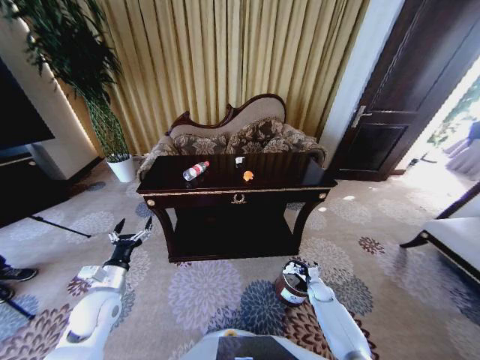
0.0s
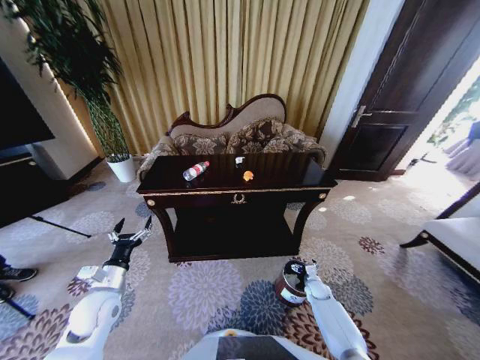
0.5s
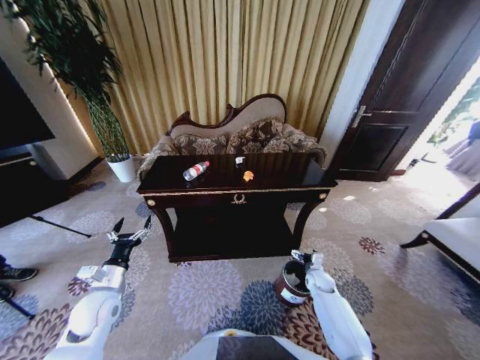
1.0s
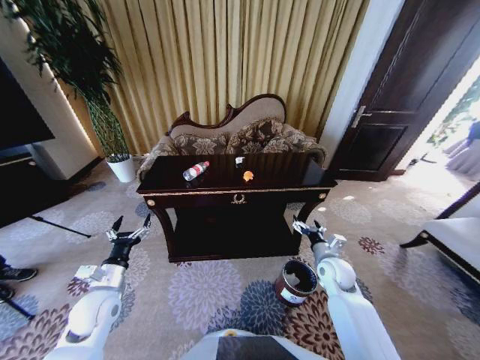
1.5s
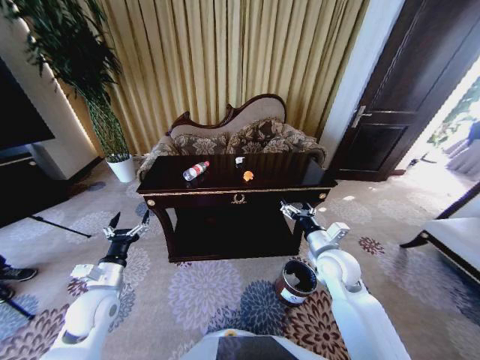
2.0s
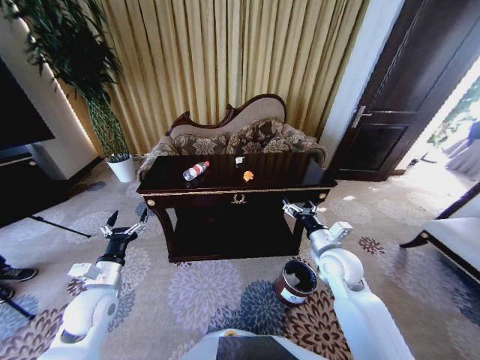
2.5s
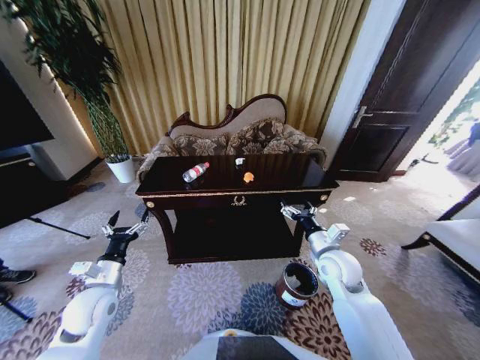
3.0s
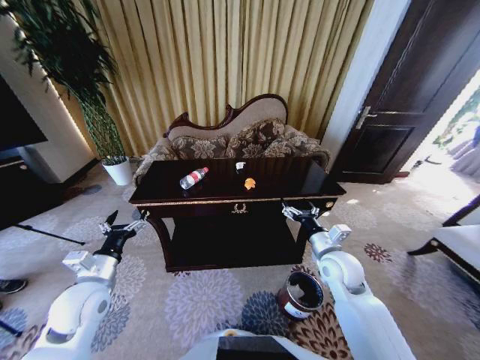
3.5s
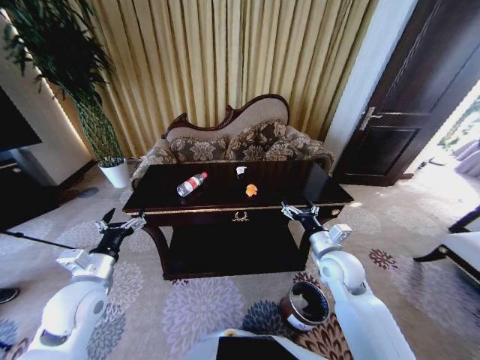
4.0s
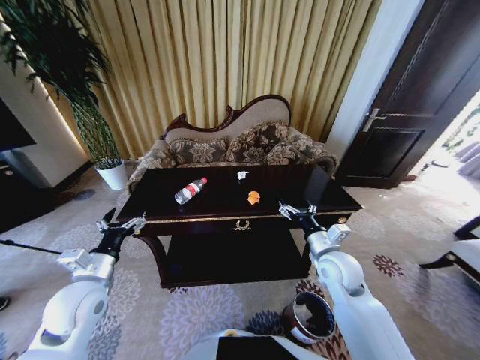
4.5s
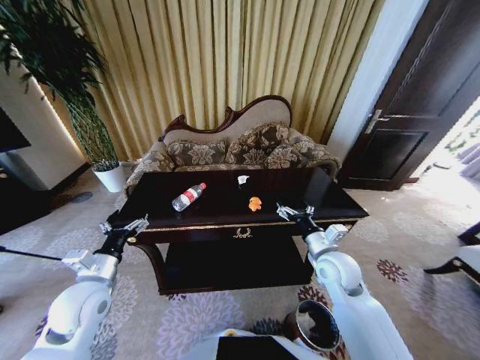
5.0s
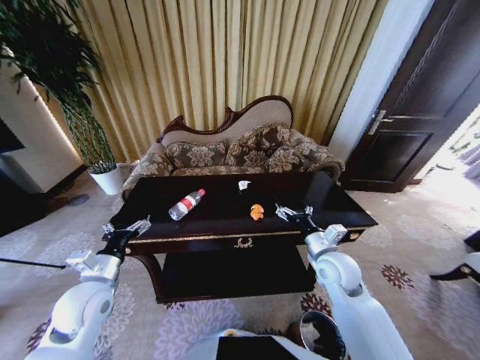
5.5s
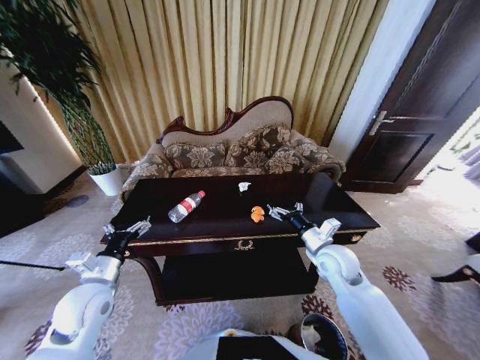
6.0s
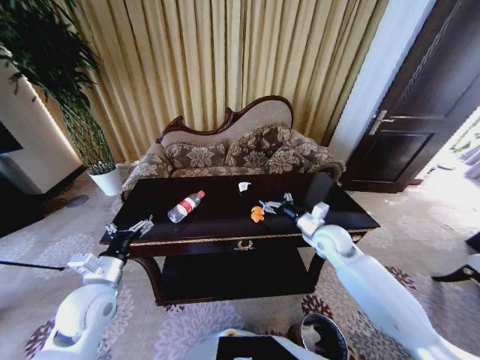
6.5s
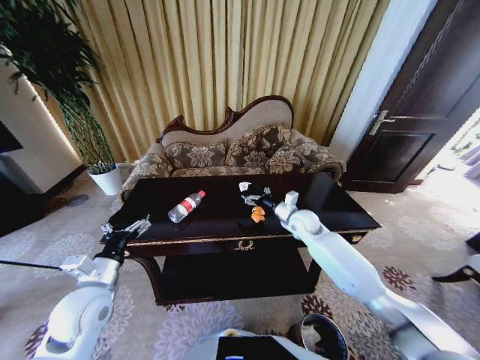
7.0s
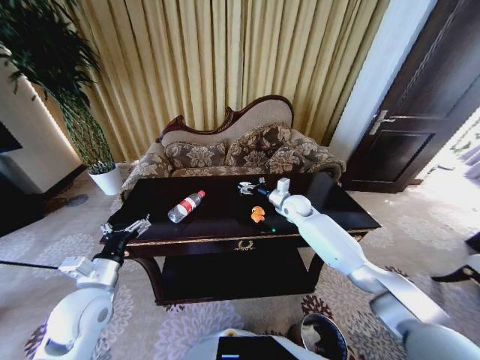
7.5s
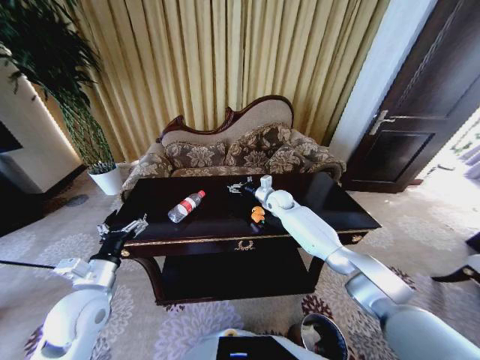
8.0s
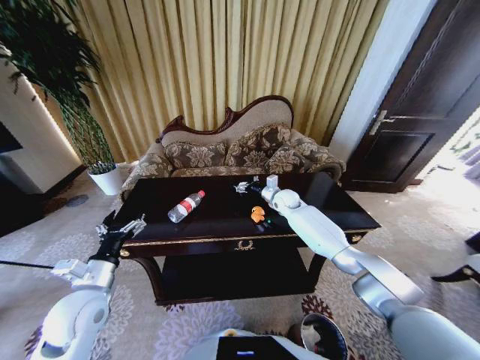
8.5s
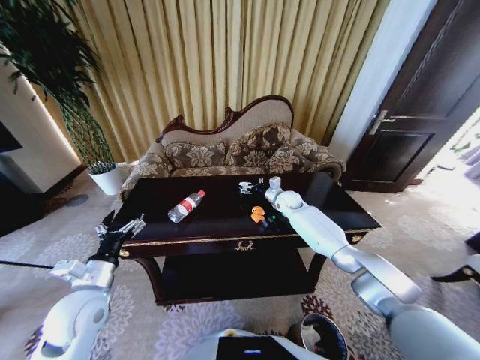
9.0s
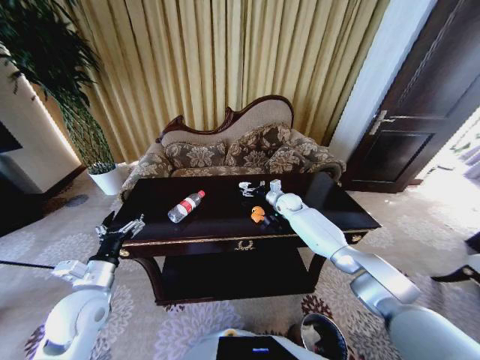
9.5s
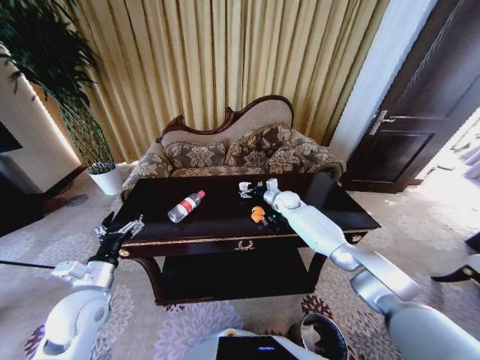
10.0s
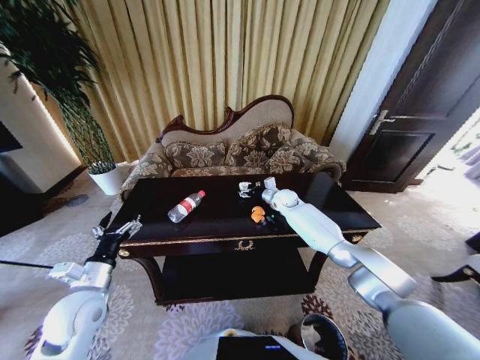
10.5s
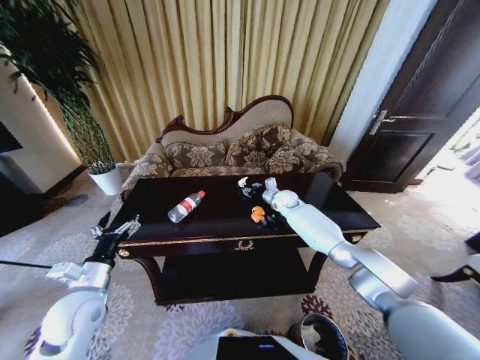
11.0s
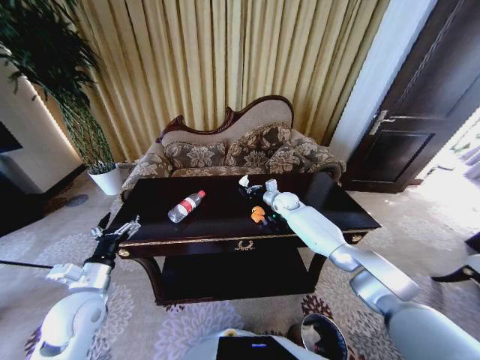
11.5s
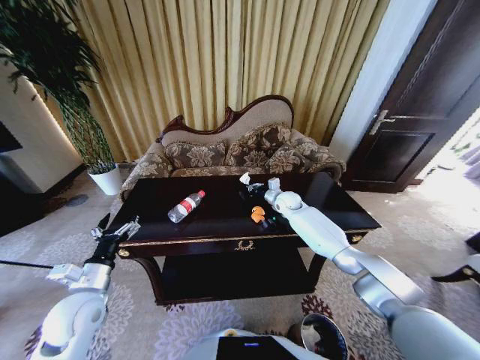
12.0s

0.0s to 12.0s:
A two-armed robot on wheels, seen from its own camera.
Task of the whole recording: Move to the front of the table and place the trash on the table into the trash bin.
0.0s to 2.0s: The right gripper moves upward, about 30 cm.
2.0s to 4.0s: The left gripper moves upward, approximately 5 cm.
6.0s to 8.0s: The right gripper travels forward by about 25 cm.
8.0s to 10.0s: There are only small adjustments of the grippers.
10.0s to 12.0s: The right gripper closes its fingers.

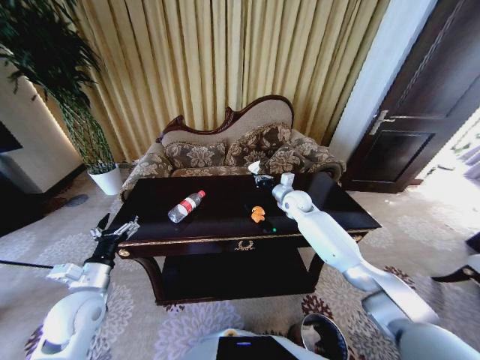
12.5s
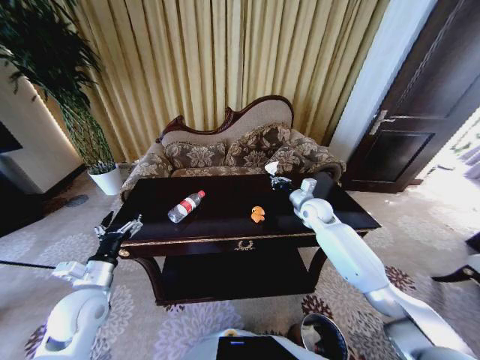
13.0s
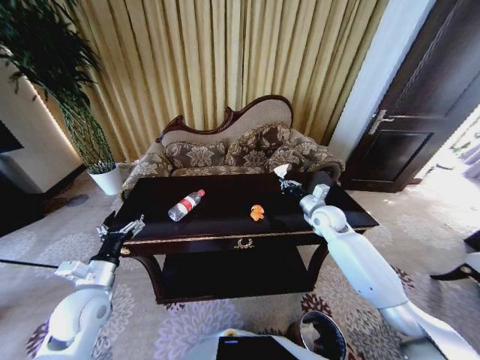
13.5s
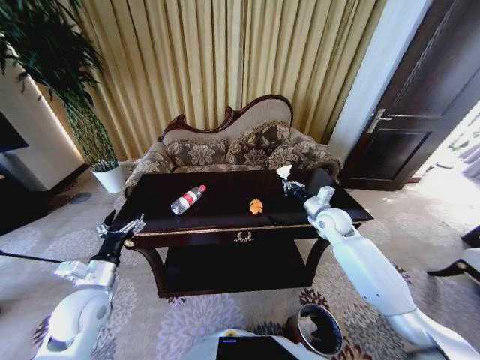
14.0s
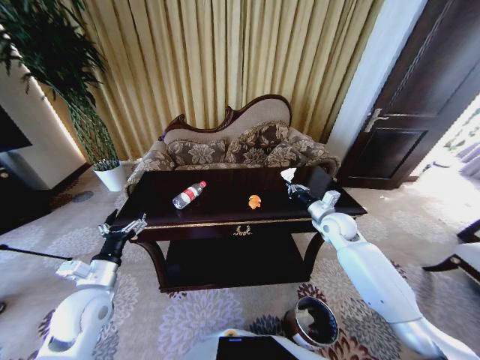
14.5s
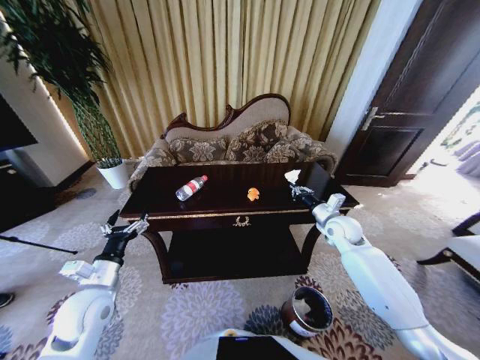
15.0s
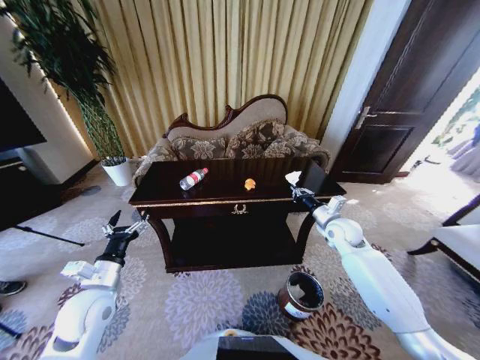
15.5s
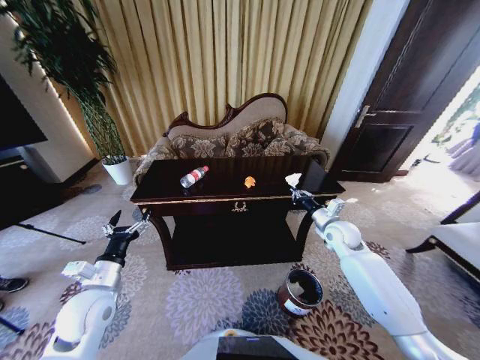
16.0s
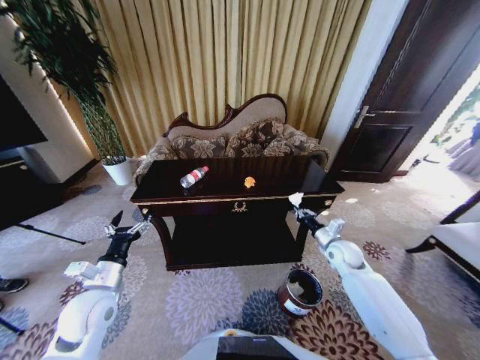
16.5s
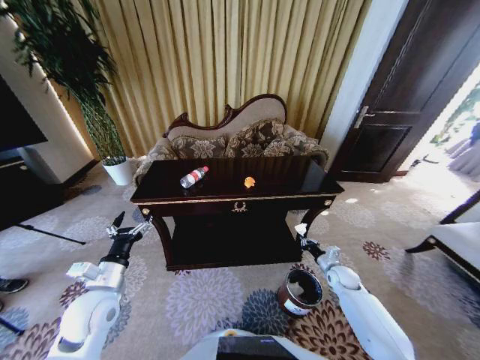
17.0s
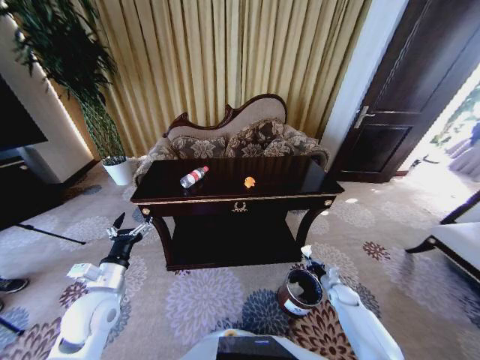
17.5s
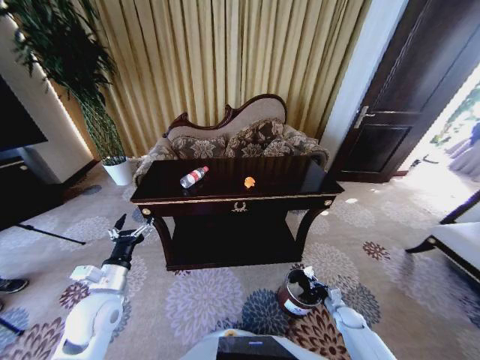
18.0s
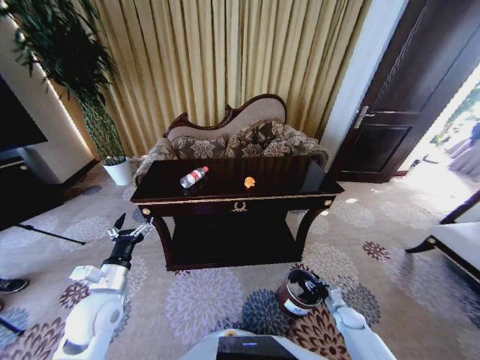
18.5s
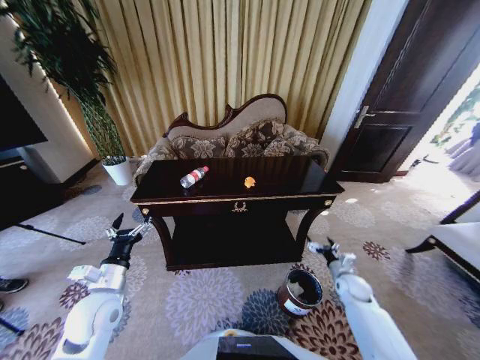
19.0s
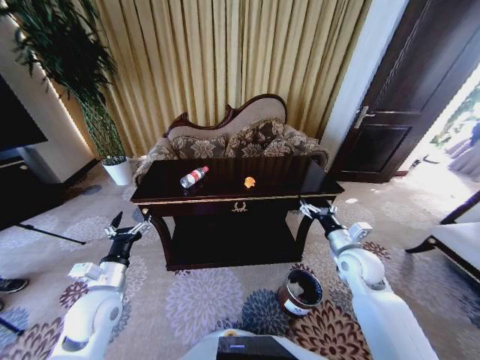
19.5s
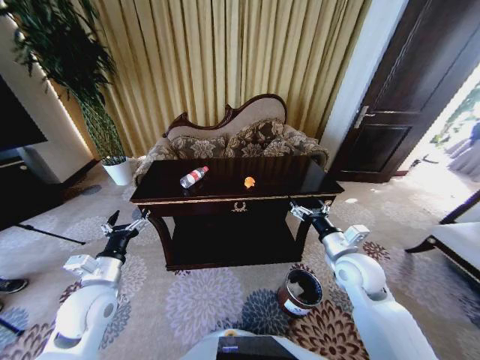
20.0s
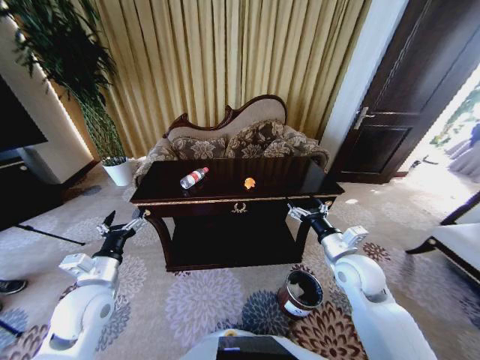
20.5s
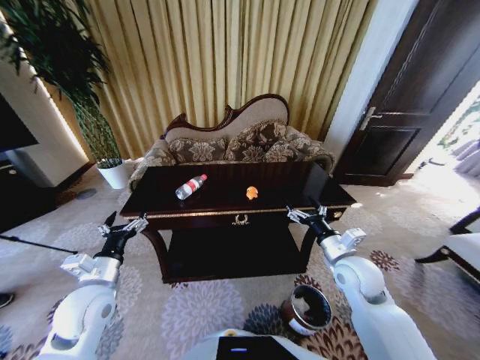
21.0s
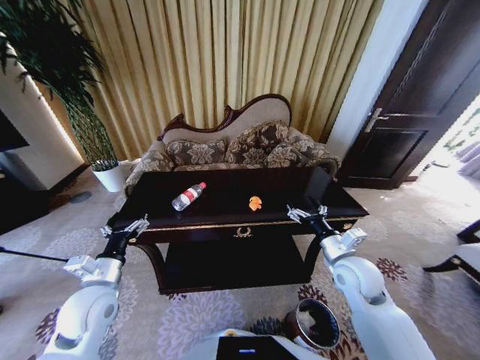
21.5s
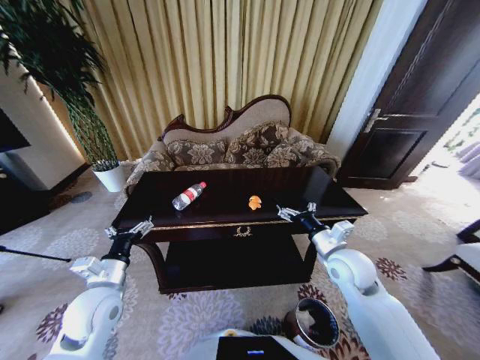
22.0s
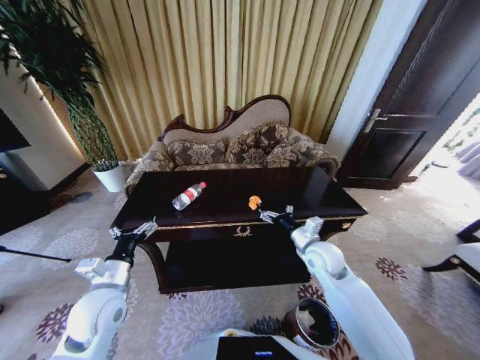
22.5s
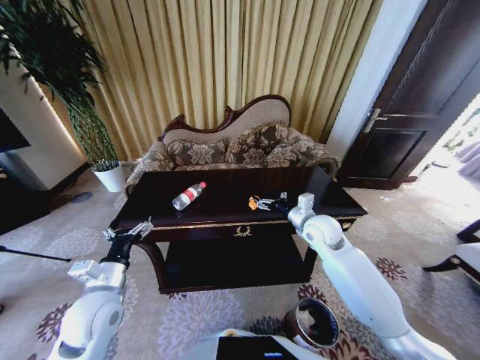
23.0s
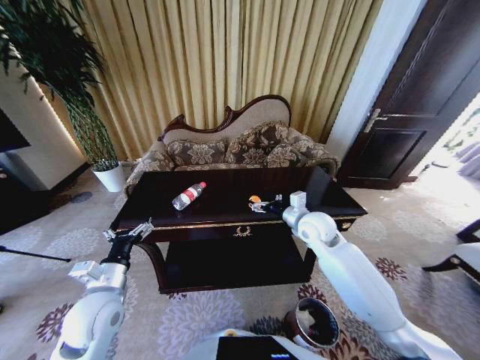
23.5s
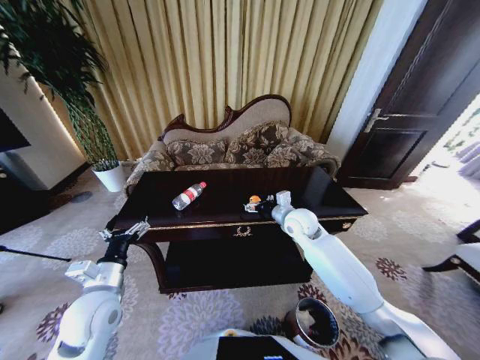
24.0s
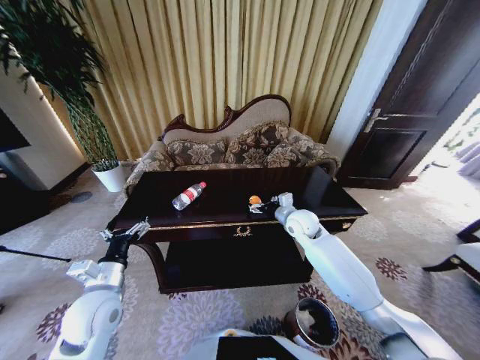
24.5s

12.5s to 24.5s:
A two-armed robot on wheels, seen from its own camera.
Task of the whole recording: Move to the front of the table and place the trash on the table into the trash bin.
12.5s to 14.5s: The right gripper moves backward and to the right, some 15 cm.
14.5s to 16.5s: The right gripper travels downward and backward by about 10 cm.
16.5s to 18.5s: The right gripper goes approximately 30 cm downward and backward, and opens up.
18.5s to 20.5s: The right gripper shifts roughly 35 cm upward and to the left, and opens up.
20.5s to 22.5s: The right gripper is displaced forward and to the left by approximately 10 cm.
22.5s to 24.5s: The right gripper heads forward, covering roughly 10 cm.

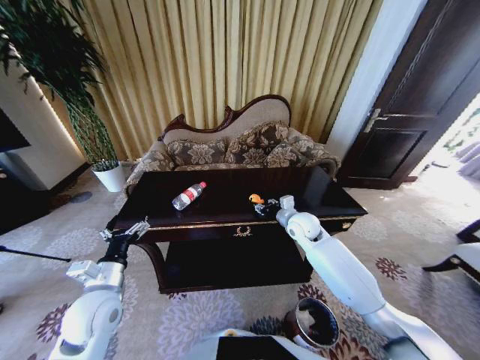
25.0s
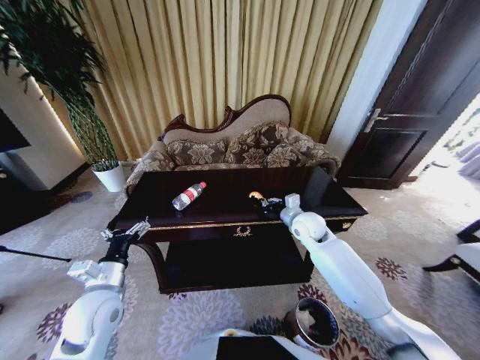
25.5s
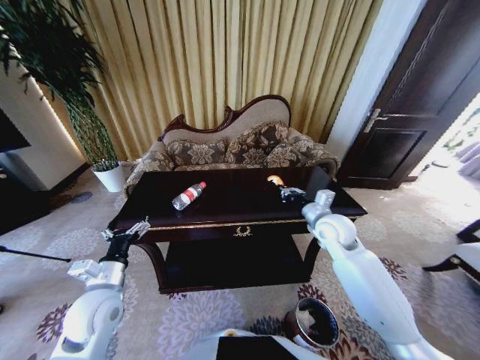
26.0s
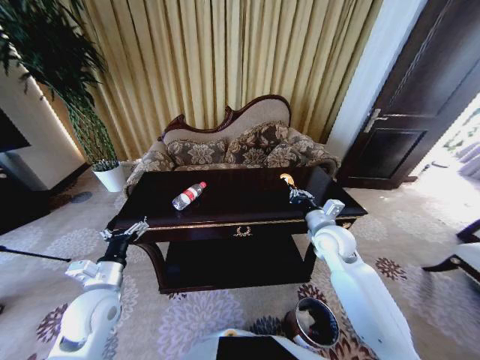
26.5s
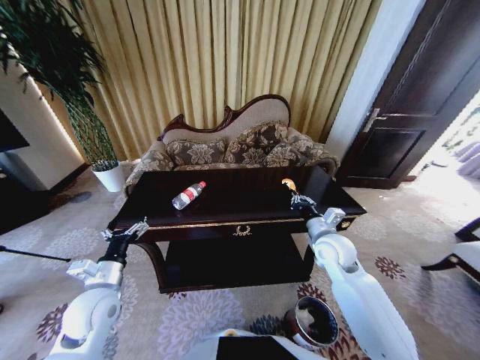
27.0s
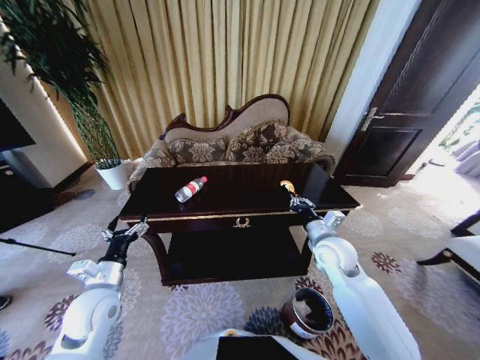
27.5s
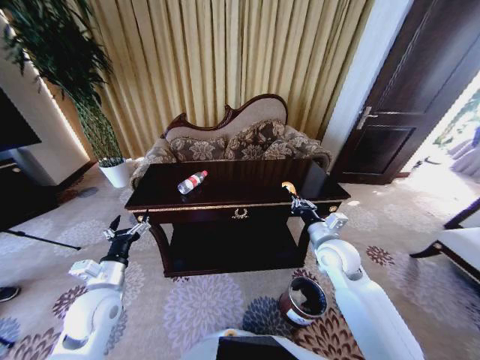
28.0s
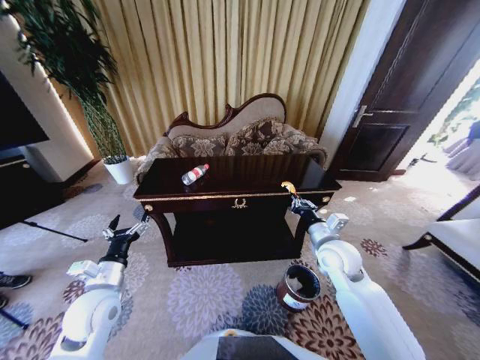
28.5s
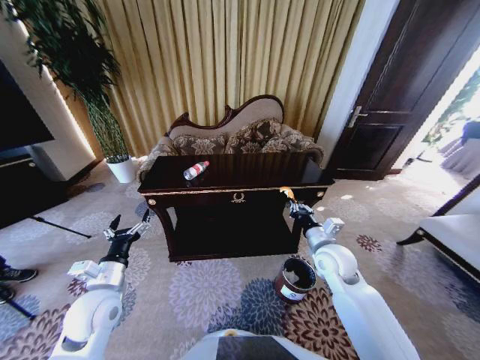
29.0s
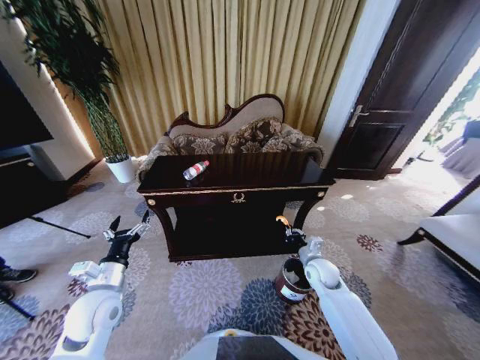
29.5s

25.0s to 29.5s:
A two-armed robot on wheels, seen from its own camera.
Task of the whole recording: Move to the front of the table and place the trash on the table into the trash bin.
25.0s to 27.0s: The right gripper goes roughly 10 cm backward, and closes its fingers.
27.0s to 29.5s: The right gripper moves downward, roughly 15 cm.
